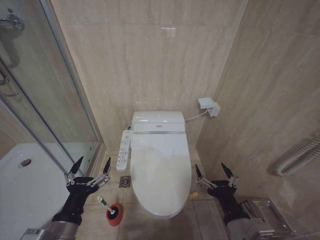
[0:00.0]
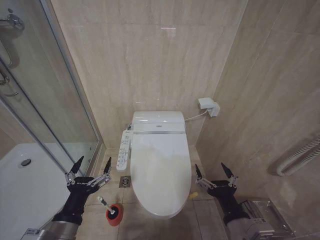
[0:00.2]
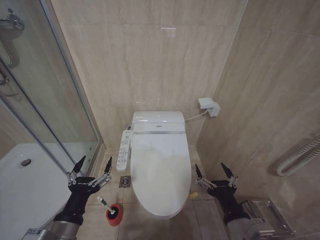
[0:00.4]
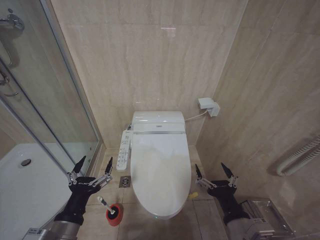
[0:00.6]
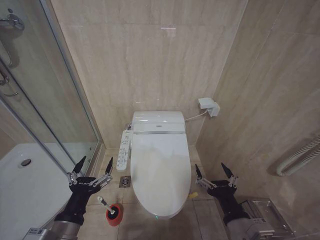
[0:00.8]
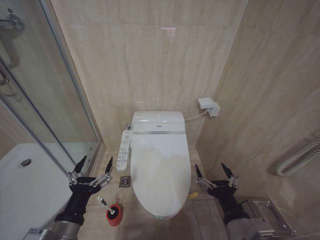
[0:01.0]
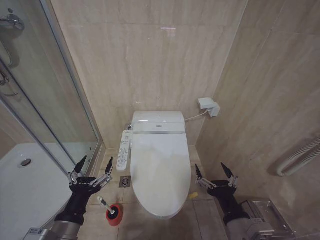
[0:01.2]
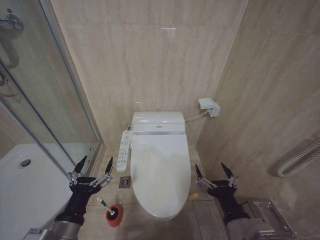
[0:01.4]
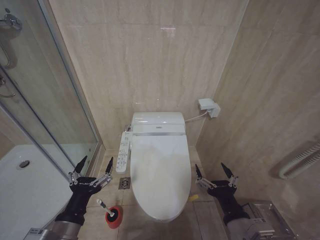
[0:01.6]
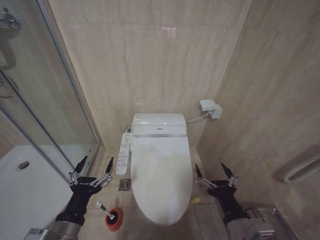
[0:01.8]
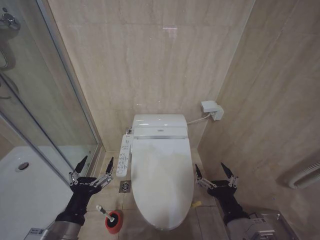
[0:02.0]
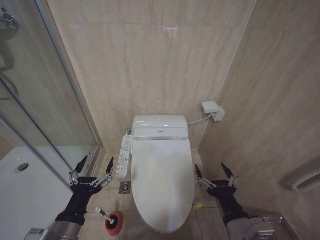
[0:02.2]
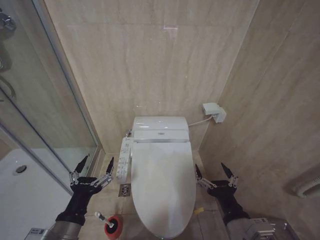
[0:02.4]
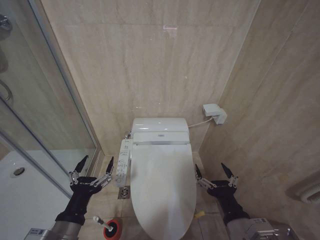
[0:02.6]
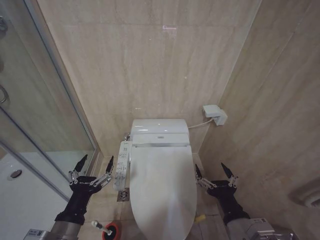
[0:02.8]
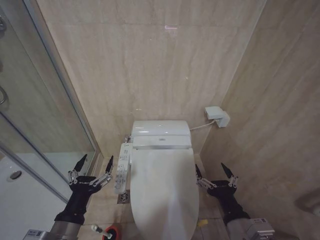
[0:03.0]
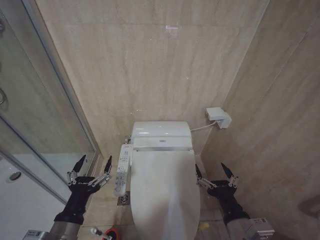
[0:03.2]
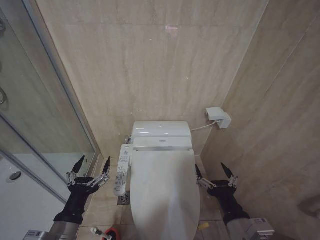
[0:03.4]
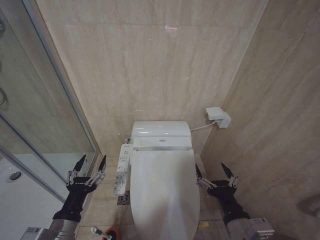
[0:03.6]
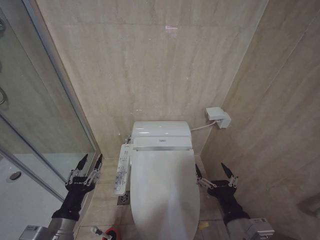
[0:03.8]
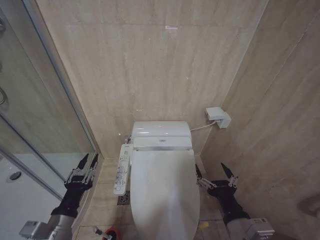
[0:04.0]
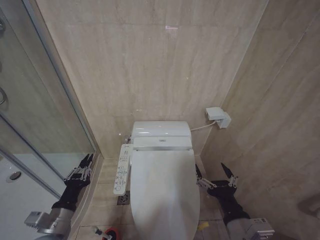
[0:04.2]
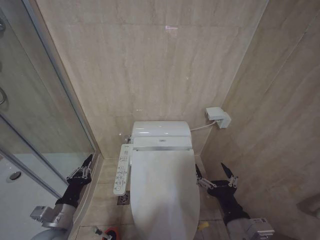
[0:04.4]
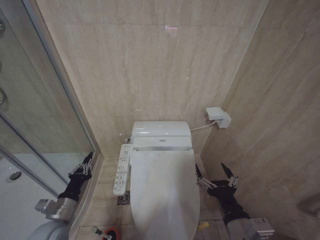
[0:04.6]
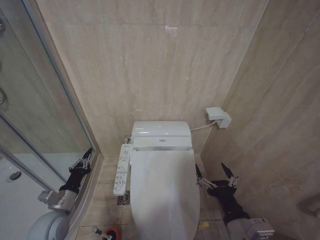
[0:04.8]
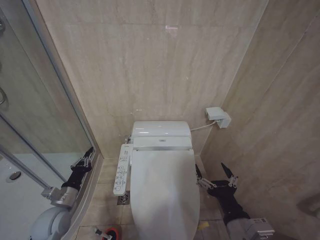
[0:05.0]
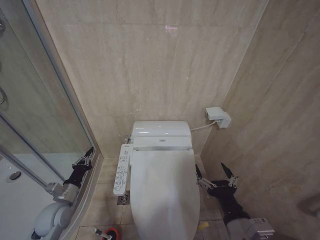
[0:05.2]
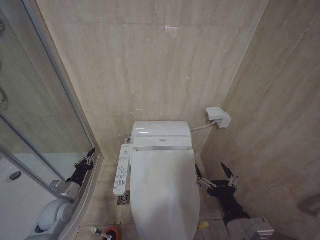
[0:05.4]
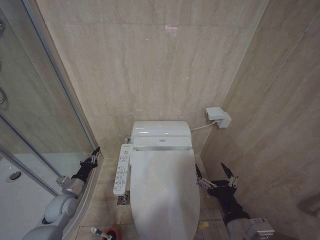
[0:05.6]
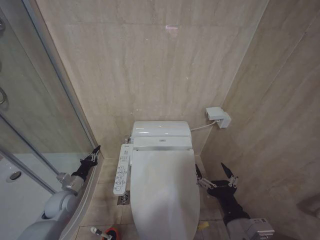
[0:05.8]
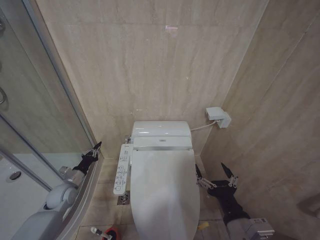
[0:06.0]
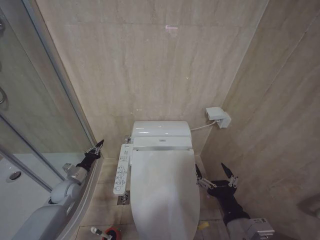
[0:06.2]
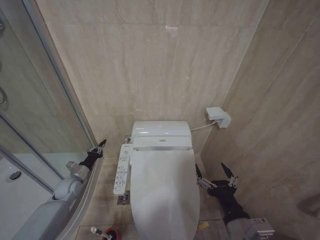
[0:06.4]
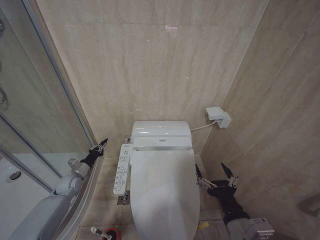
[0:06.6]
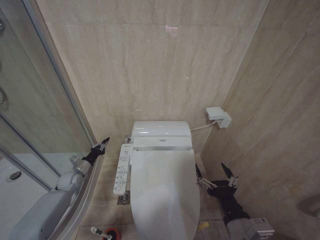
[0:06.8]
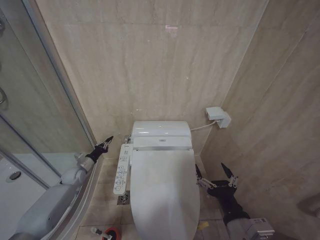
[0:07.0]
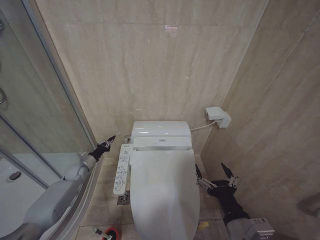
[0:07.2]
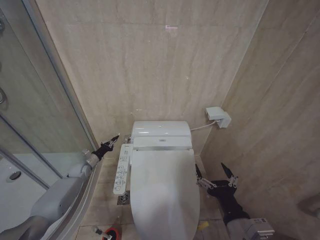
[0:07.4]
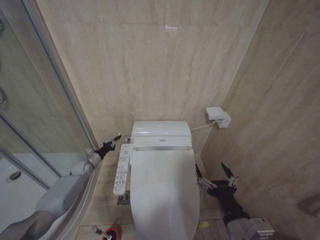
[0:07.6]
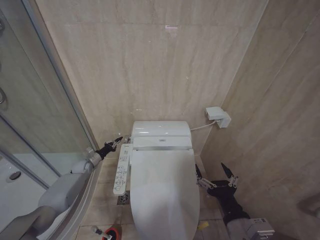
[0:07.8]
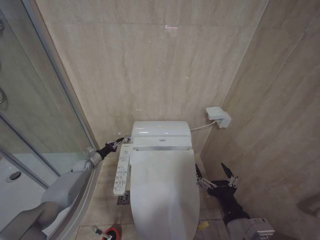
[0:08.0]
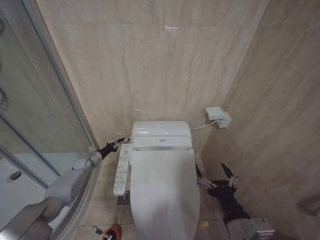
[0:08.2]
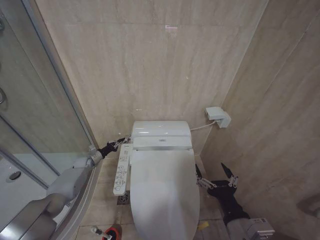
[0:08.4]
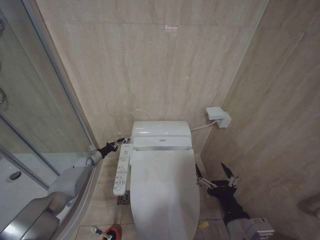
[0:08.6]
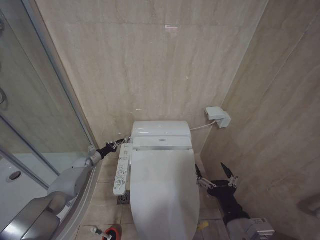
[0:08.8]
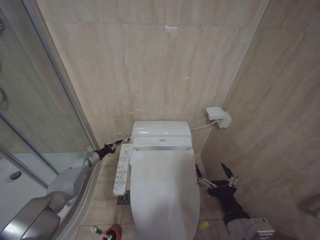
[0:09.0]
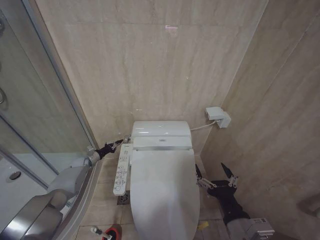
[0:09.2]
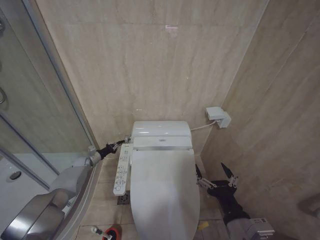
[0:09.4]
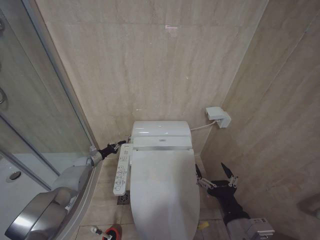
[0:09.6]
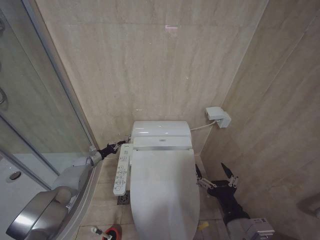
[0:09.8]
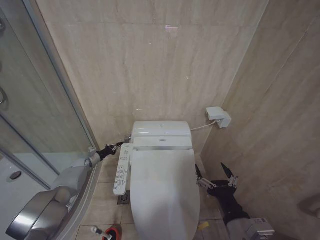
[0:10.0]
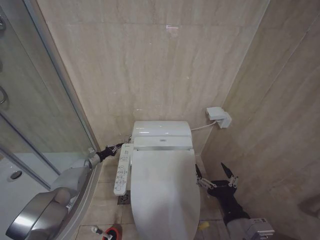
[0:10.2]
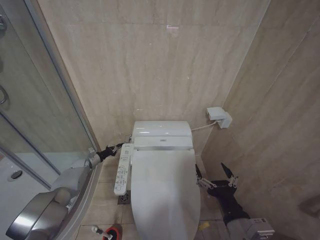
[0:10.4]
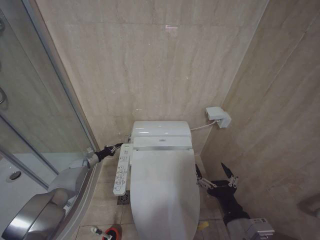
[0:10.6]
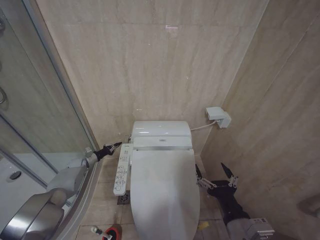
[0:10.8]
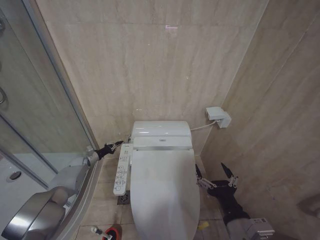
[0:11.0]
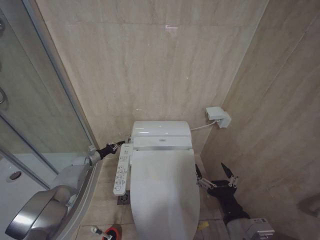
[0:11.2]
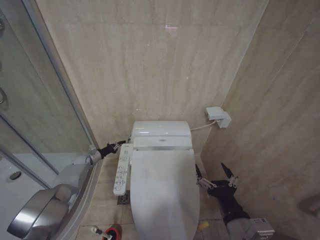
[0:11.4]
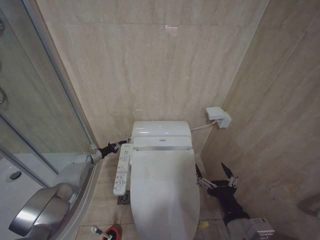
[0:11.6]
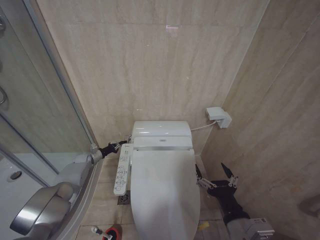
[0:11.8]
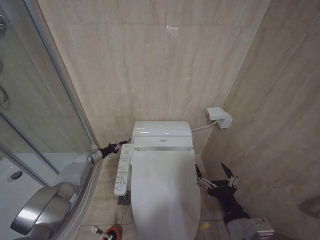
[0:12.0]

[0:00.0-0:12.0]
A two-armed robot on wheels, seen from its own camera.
Task of the whole recording: Open the toilet lid, clean the toilet bowl with a toilet brush, close the toilet lid, and flush.
0:00.0 to 0:03.0: Neither gripper changes place.
0:03.0 to 0:04.4: The left gripper moves downward, to the left and forward, about 10 cm, and closes up.
0:04.4 to 0:06.0: The left gripper shifts roughly 20 cm forward, to the left and downward.
0:06.0 to 0:07.6: The left gripper heads forward, covering approximately 15 cm.
0:07.6 to 0:09.0: The grippers move only a little.
0:09.0 to 0:10.4: Both grippers stay put.
0:10.4 to 0:12.0: The grippers make only small movements.

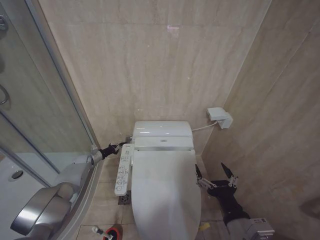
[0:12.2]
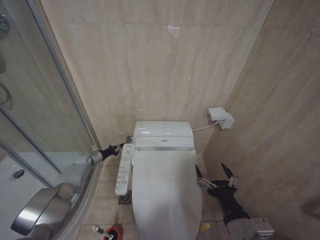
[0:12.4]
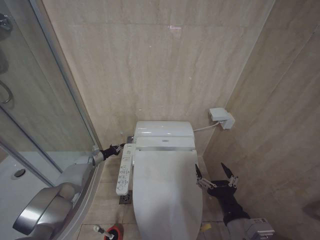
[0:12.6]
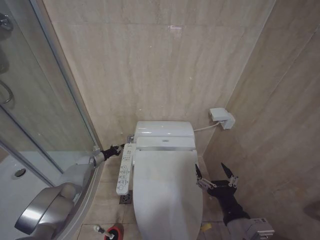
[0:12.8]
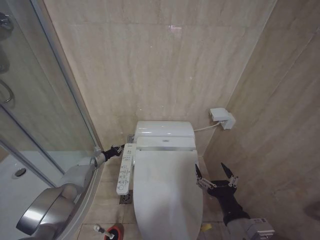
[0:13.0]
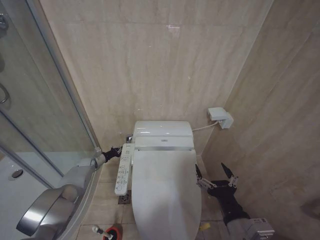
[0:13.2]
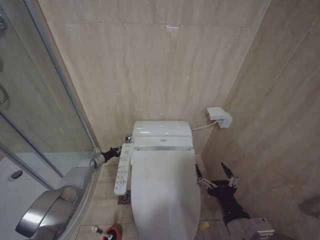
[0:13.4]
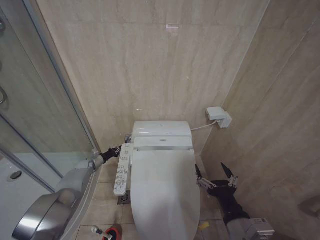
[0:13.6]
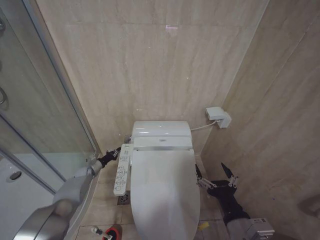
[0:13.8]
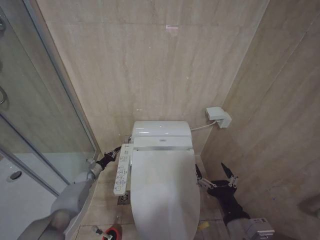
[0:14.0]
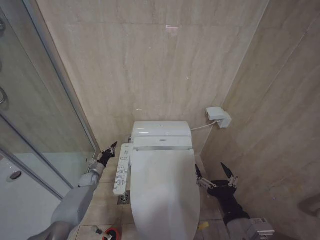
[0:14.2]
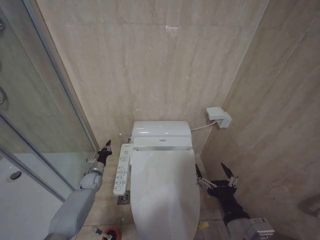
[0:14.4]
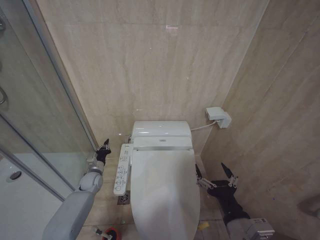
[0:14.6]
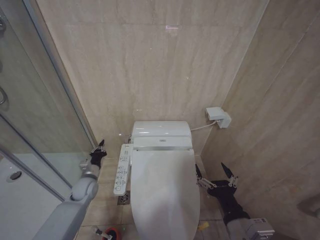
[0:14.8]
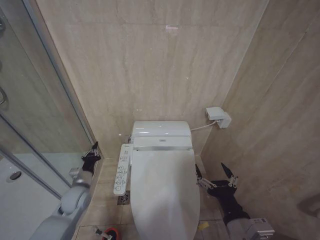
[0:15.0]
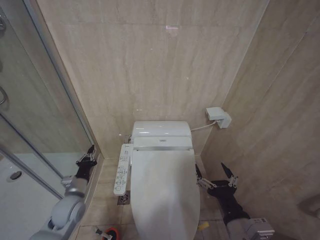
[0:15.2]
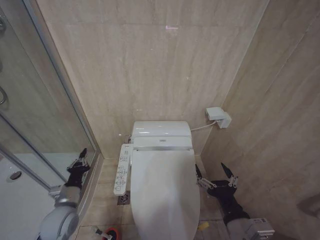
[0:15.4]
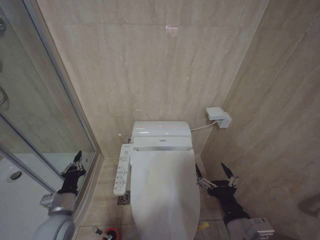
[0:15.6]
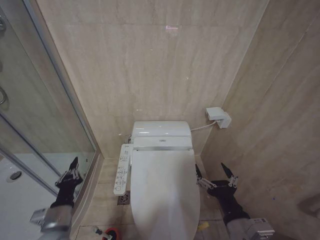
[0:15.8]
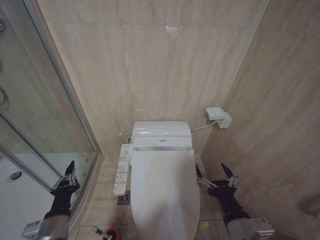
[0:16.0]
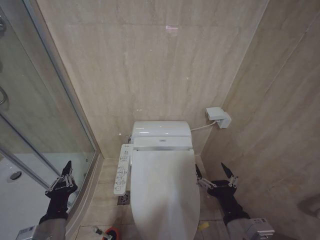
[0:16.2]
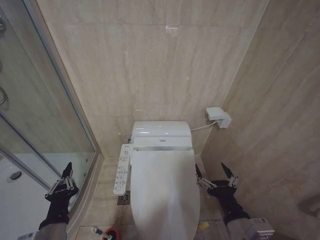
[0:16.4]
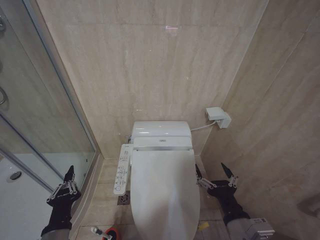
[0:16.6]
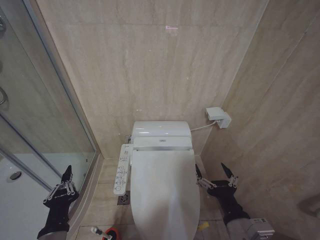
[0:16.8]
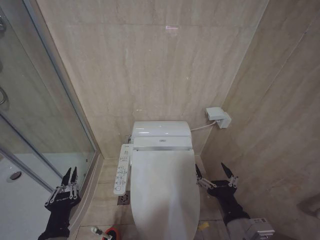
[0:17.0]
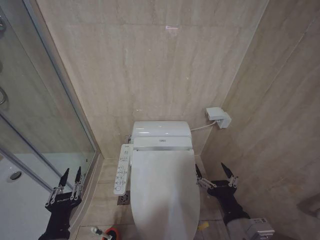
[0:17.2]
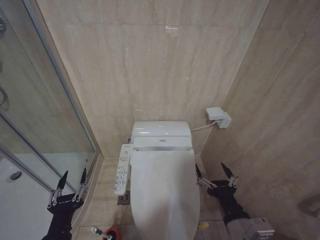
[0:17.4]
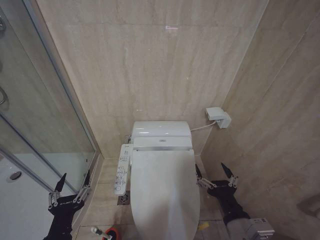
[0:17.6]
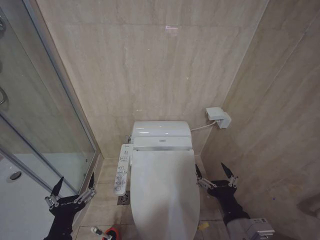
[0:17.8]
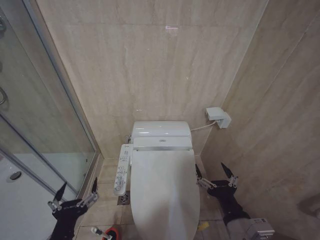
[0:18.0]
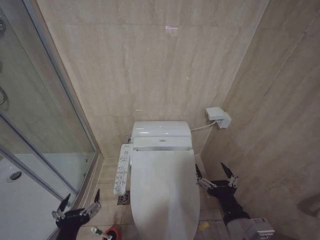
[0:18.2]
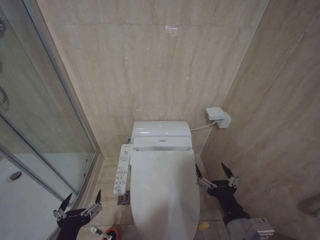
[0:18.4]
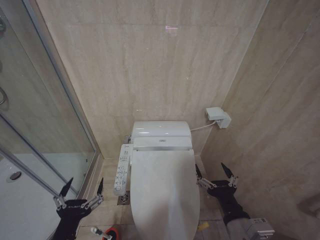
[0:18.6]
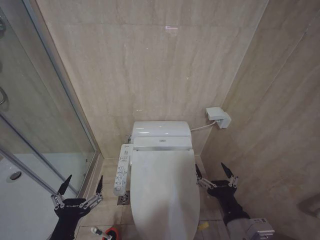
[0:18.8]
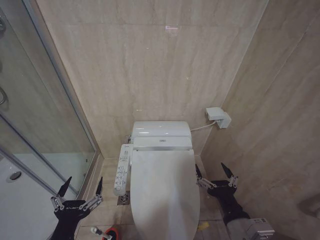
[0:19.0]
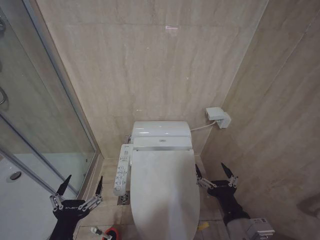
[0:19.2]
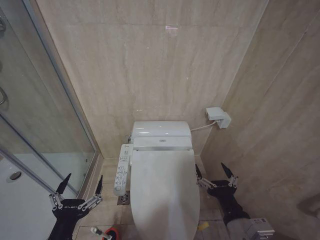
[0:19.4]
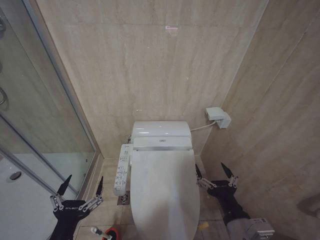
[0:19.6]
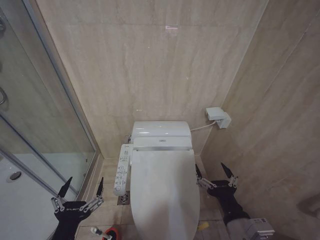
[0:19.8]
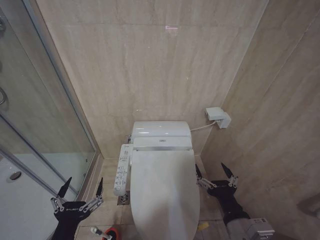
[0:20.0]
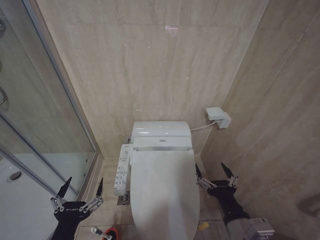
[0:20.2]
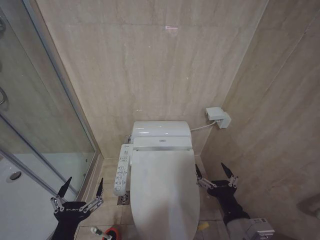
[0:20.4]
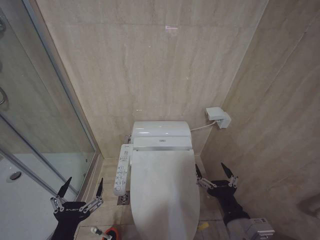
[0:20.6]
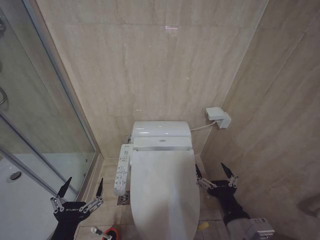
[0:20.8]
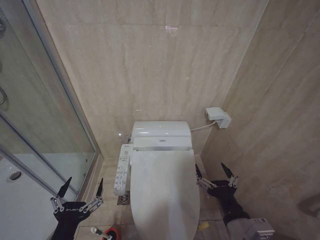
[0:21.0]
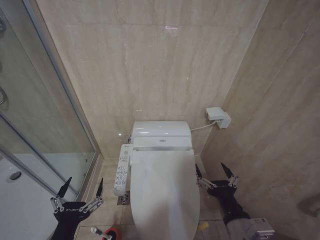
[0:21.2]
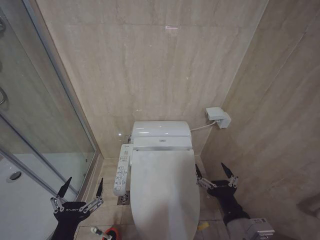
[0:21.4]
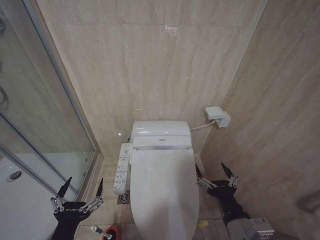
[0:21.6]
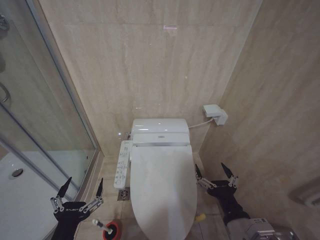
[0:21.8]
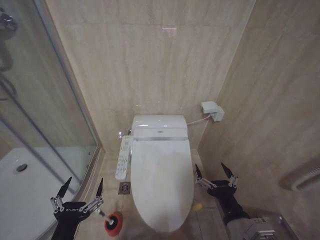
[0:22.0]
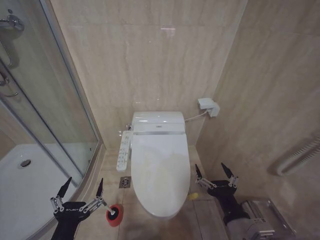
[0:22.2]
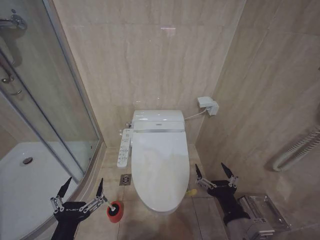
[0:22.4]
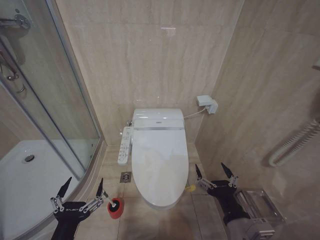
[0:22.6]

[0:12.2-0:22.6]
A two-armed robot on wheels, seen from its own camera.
Task of the whole recording: Open the toilet lid, clean the toilet bowl with a toilet brush, close the toilet lid, and flush.
0:12.2 to 0:13.6: The grippers make only small movements.
0:13.6 to 0:15.2: The left gripper heads backward and upward, covering some 25 cm.
0:15.2 to 0:16.6: The left gripper goes approximately 20 cm backward.
0:16.6 to 0:18.2: The left gripper shifts by roughly 5 cm, and opens its fingers.
0:19.6 to 0:22.6: Both grippers stay about where they are.
